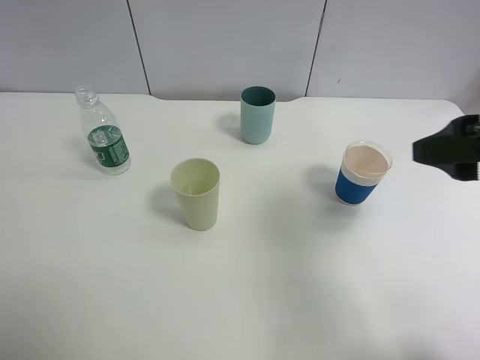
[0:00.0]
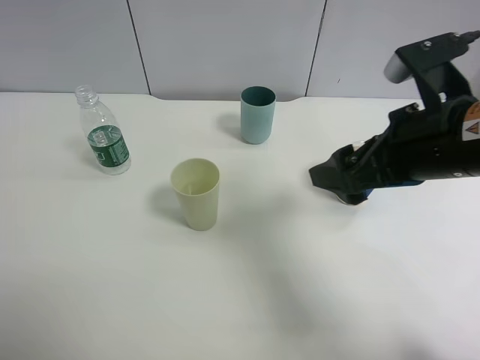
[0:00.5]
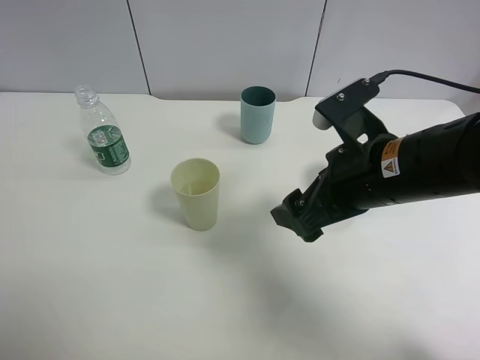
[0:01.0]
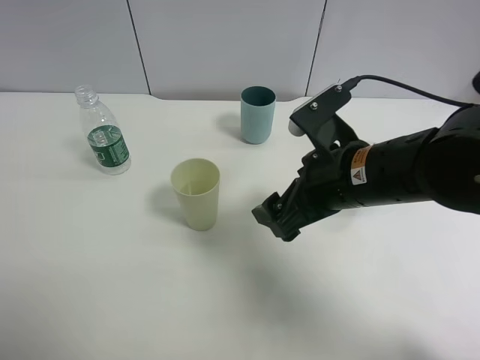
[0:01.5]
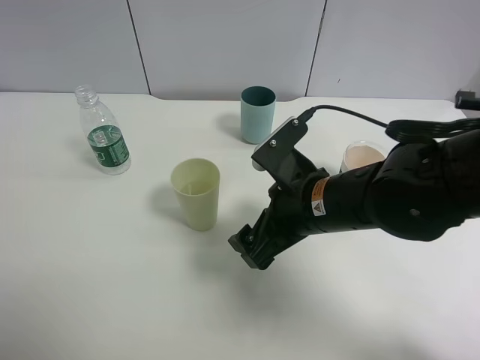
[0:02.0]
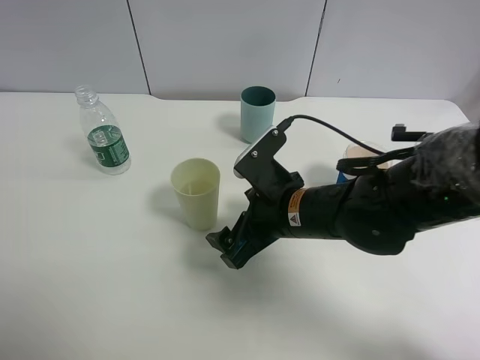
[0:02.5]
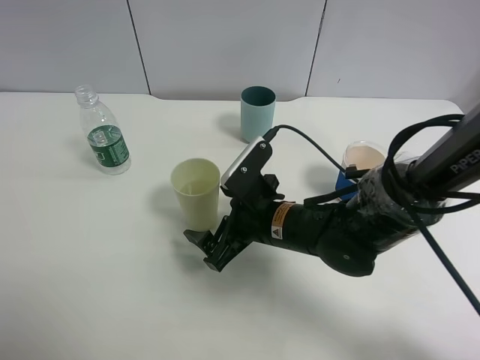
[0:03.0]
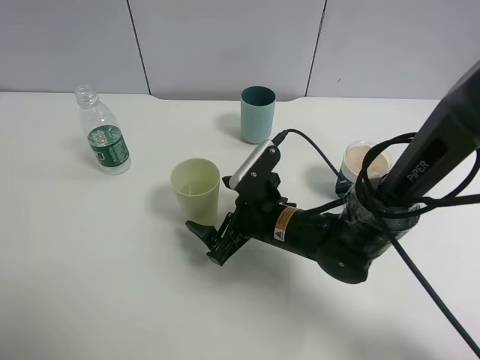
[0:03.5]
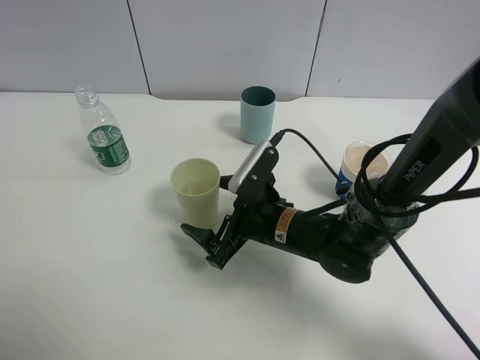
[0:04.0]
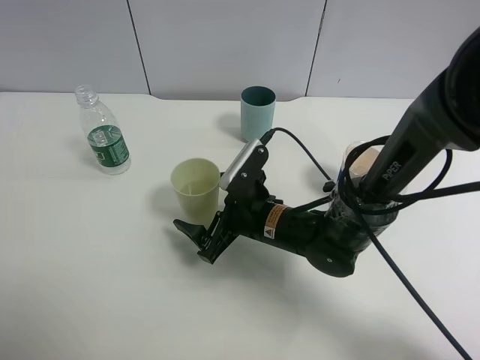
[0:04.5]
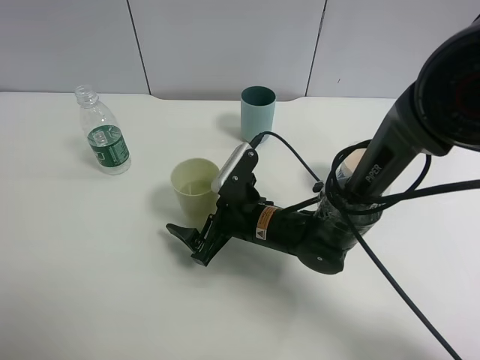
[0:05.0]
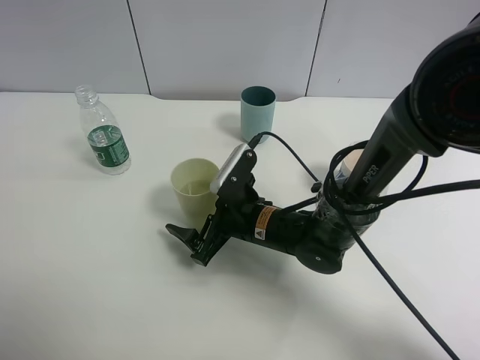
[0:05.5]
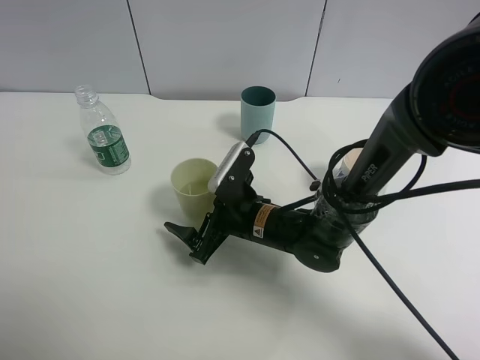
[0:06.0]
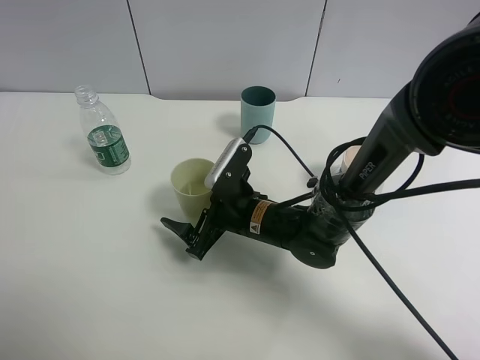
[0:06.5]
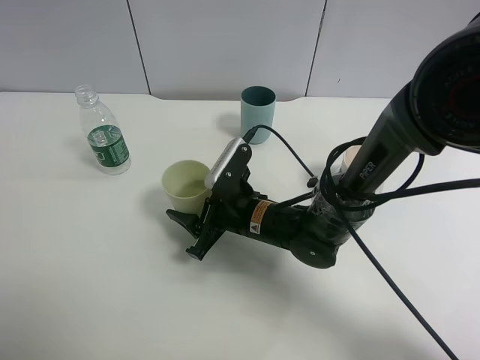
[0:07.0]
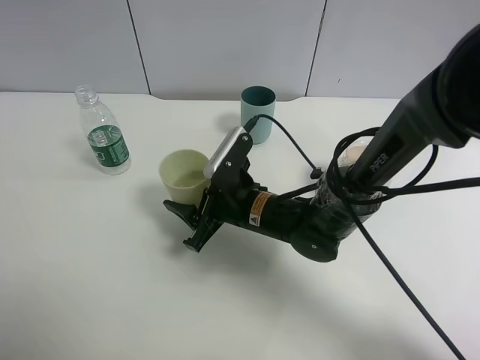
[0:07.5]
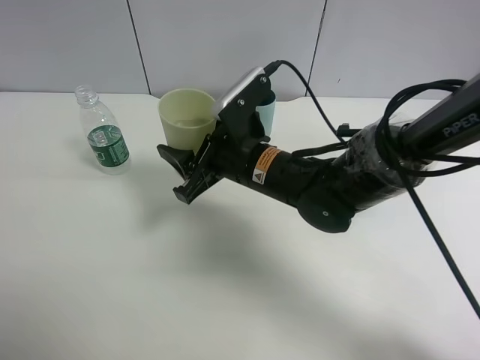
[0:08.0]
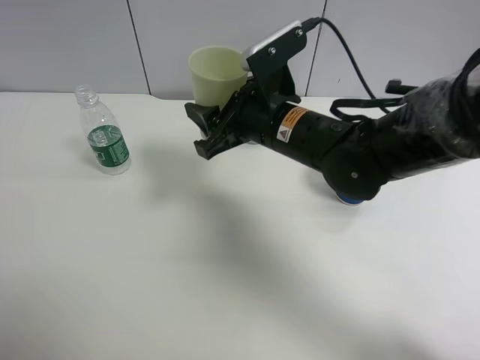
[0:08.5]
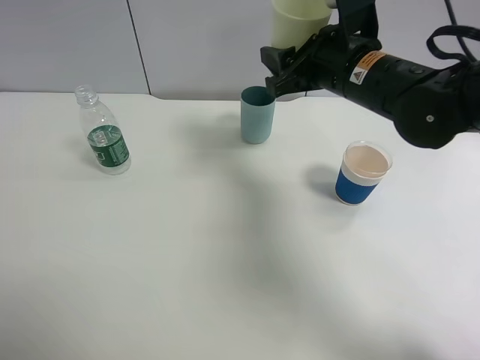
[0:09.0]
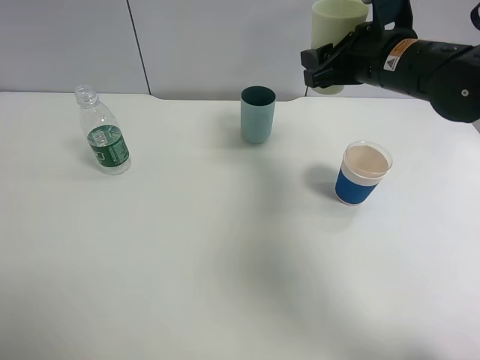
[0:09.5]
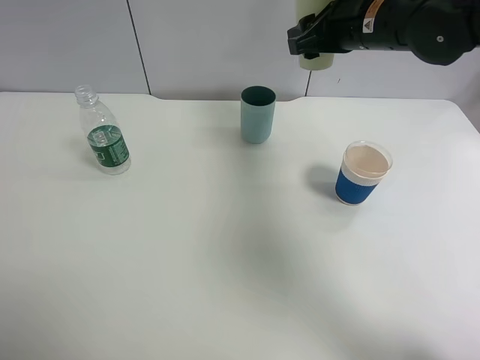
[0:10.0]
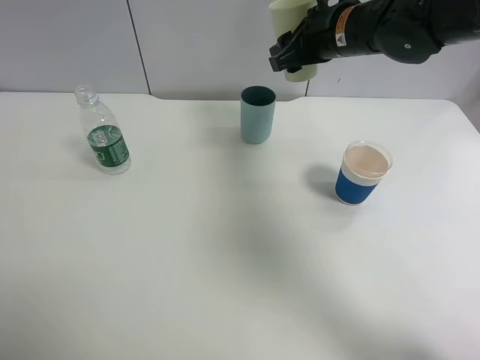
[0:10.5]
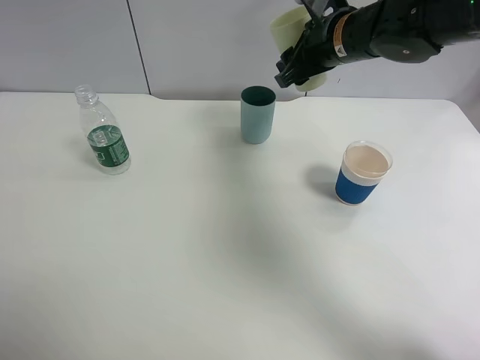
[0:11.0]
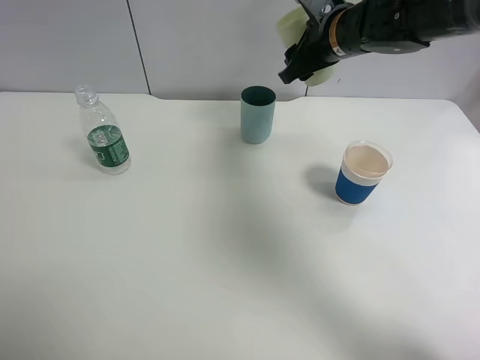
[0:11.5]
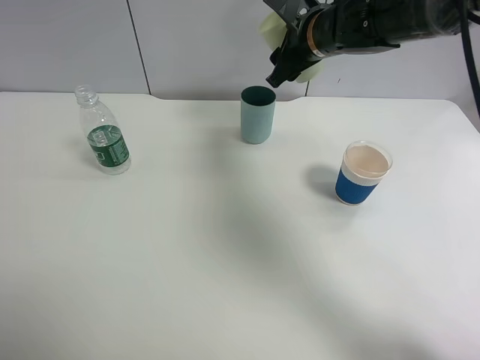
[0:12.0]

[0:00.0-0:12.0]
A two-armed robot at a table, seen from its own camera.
Task of the whole recording: use a clamp to hold the bottle of the drink, pour the beverage into a random cup, then clamp the cup containing the drink and pour the drink into another random cup.
Step, 0:00.0 to 0:07.0: Pick up the green plastic cup bottle with right gripper.
0:00.0 to 0:02.0: The right gripper travels to the left and downward by about 20 cm.
0:02.0 to 0:04.0: The right gripper travels downward by about 10 cm.
0:04.0 to 0:06.0: The grippers stay close to where they were, moving slightly.
0:06.0 to 0:08.0: The right gripper moves upward, roughly 10 cm, and closes.
0:08.0 to 0:10.0: The right gripper is displaced to the right, forward and upward by approximately 20 cm.
0:10.0 to 0:12.0: The right gripper travels to the left by some 5 cm.

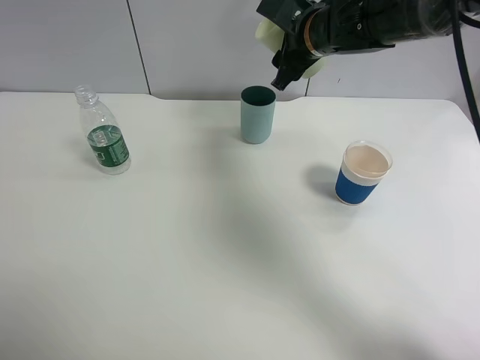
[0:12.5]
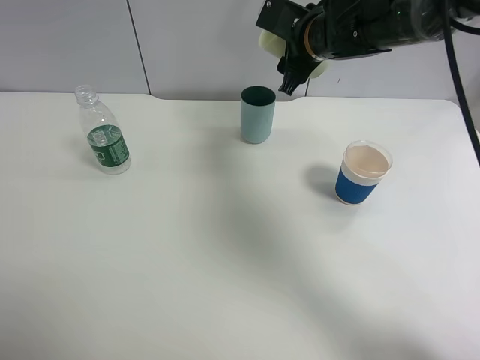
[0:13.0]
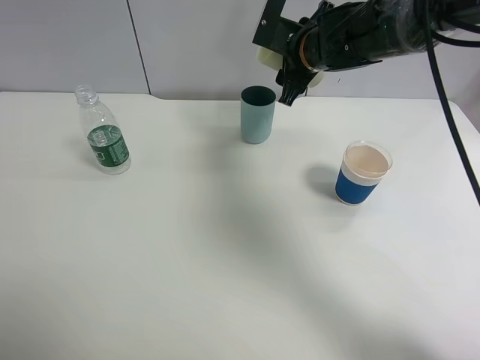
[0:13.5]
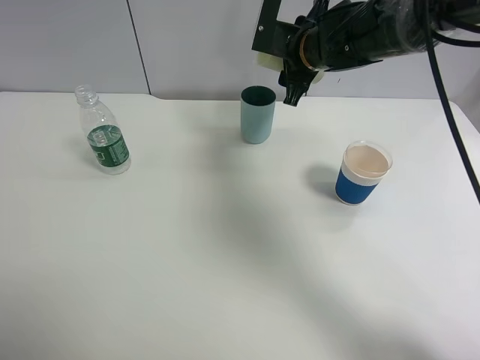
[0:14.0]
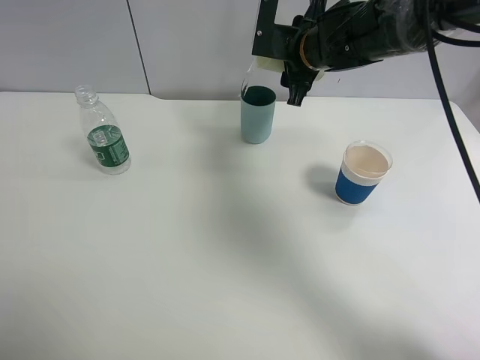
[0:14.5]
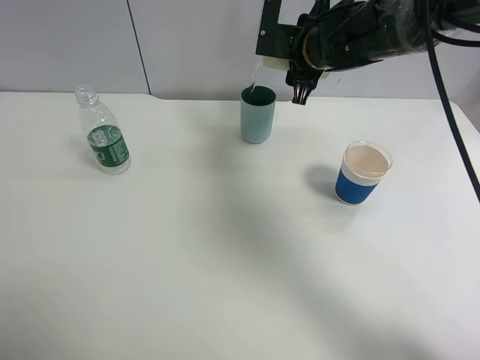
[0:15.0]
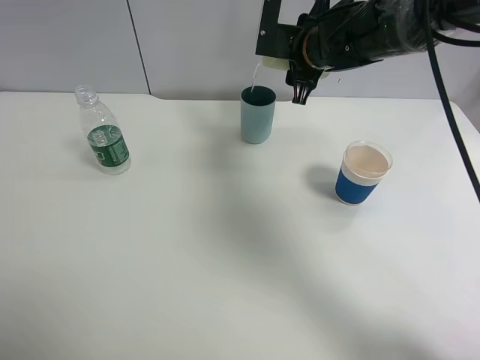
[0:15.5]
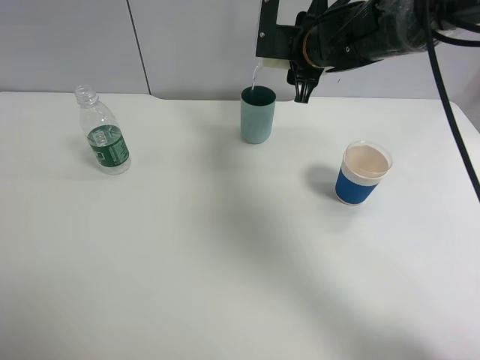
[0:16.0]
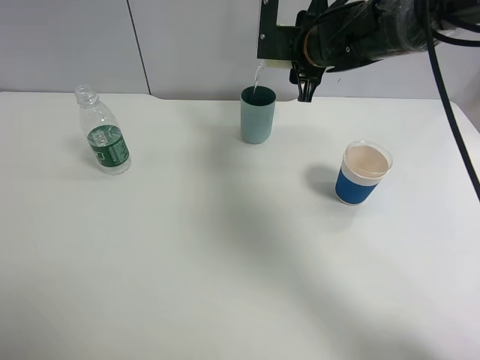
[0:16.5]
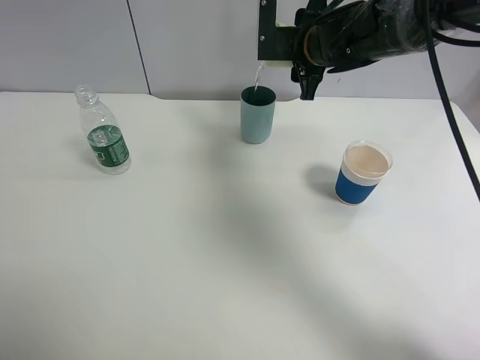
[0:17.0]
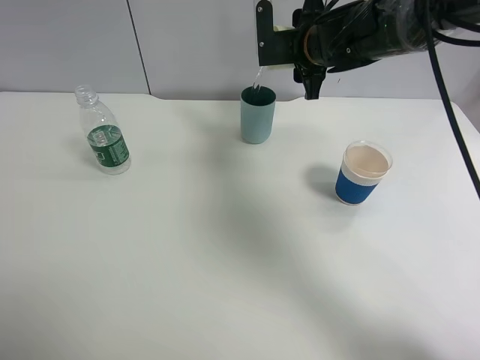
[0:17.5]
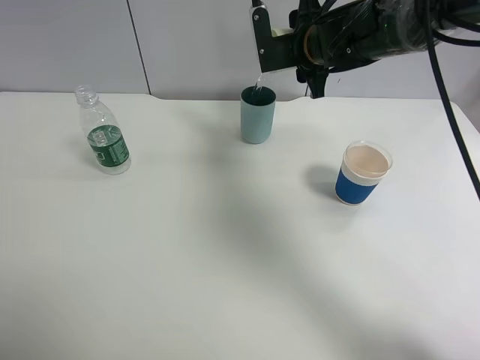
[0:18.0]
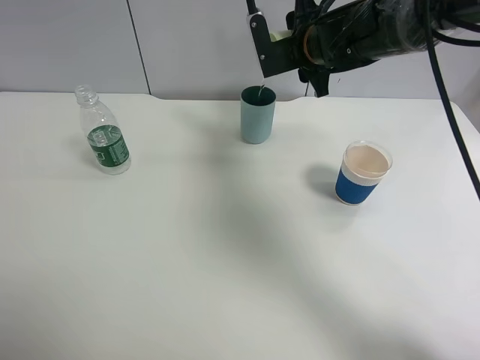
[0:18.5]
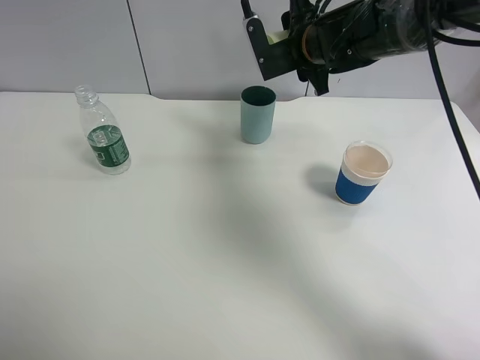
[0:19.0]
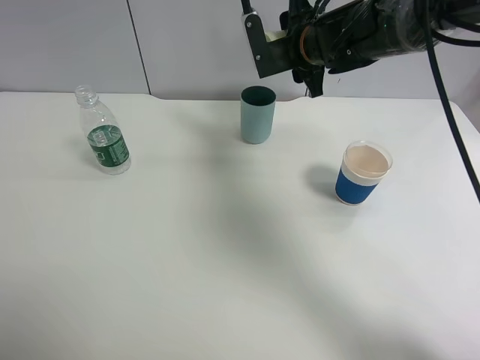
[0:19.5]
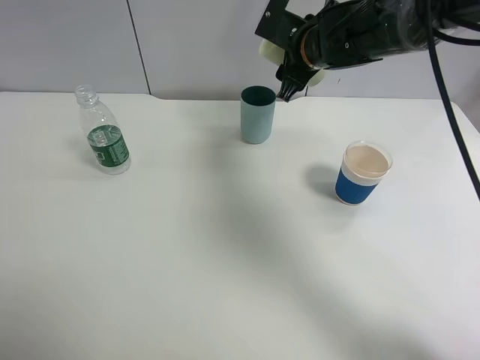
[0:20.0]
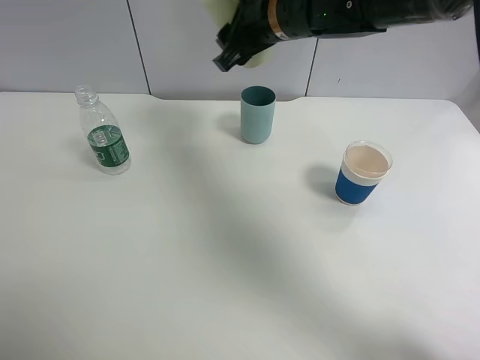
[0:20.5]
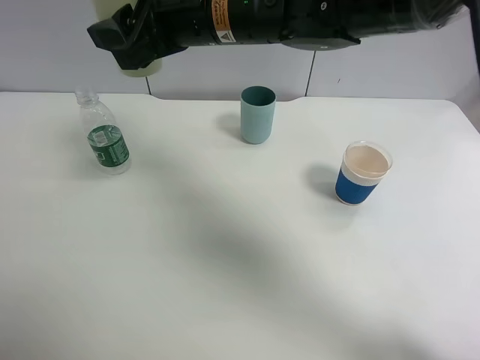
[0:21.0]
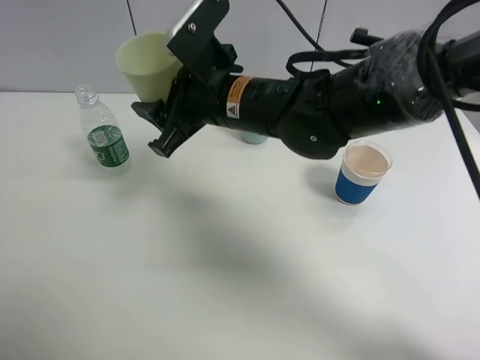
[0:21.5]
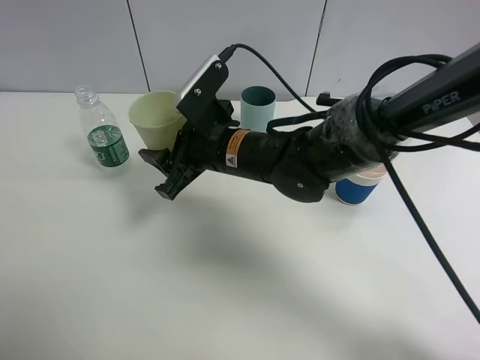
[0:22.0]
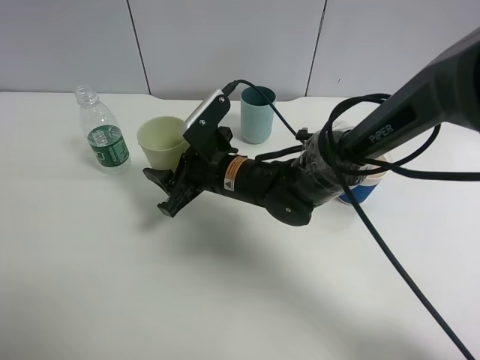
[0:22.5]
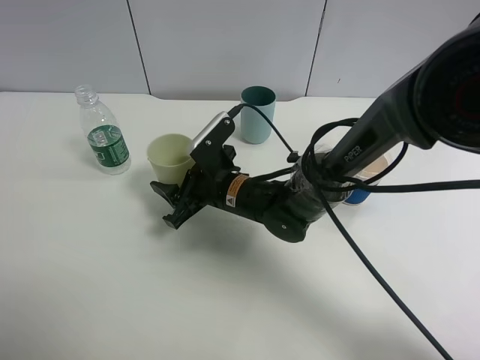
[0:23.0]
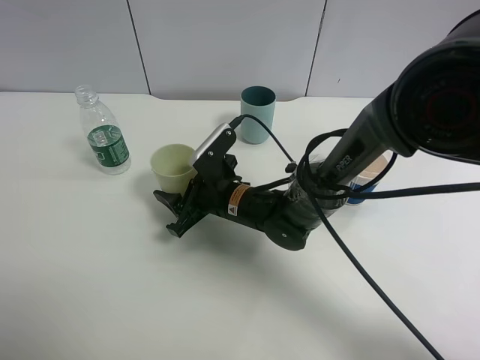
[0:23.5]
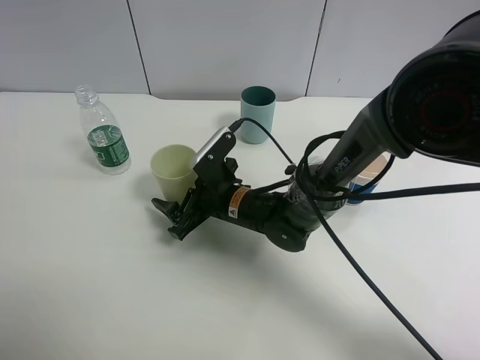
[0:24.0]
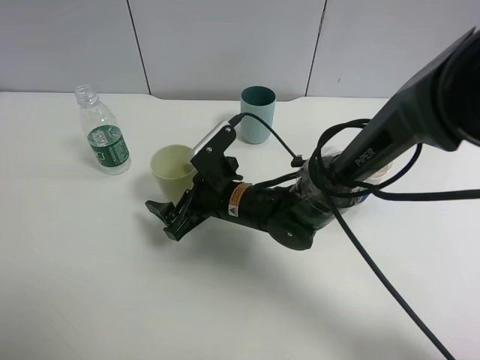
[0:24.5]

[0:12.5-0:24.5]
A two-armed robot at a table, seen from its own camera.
Task of the whole recording: use a clamp to hold the bottle of the drink, pour the beverage into a random cup, then clamp the cup containing the drink and pour the drink into another random cup.
Step, 0:12.5 to 0:19.5: Pour water into the blue plastic cup with right gripper.
0:14.5 to 0:16.5: The grippers stay close to where they were, moving slightly.
0:18.5 to 0:20.5: The right gripper is displaced to the left, backward and upward by about 10 cm.
0:20.5 to 0:22.5: The right gripper moves downward and backward, some 20 cm.
0:22.5 to 0:24.5: The right gripper opens its fingers.

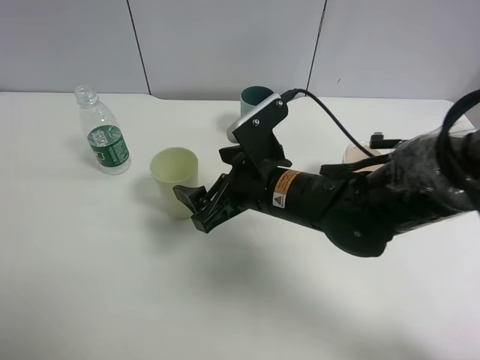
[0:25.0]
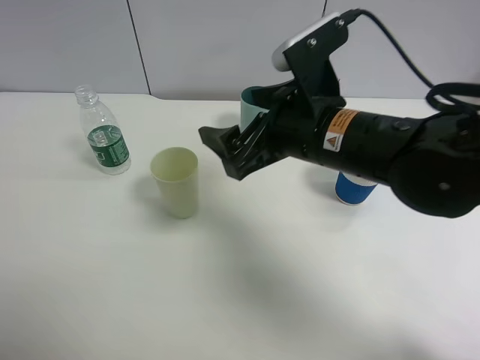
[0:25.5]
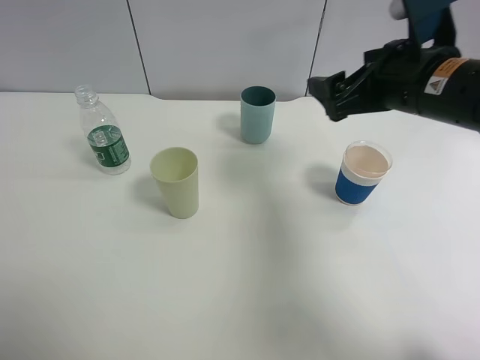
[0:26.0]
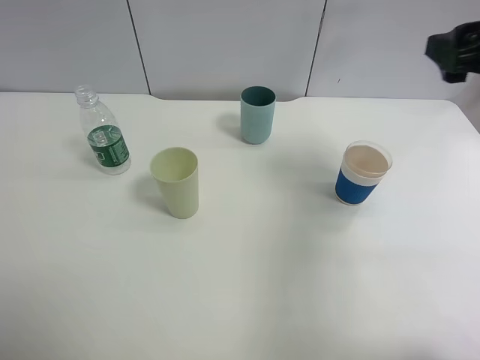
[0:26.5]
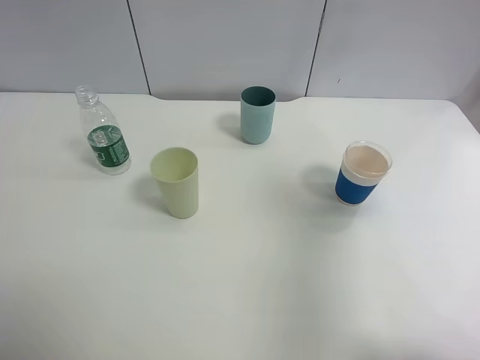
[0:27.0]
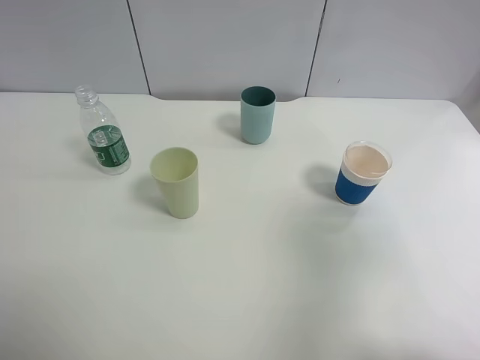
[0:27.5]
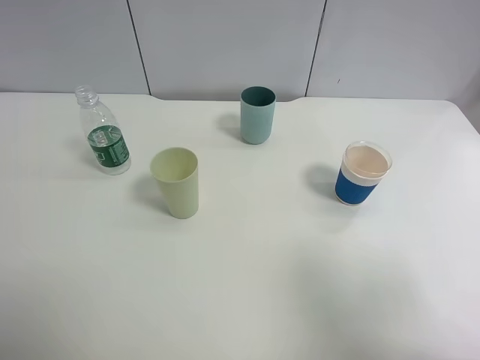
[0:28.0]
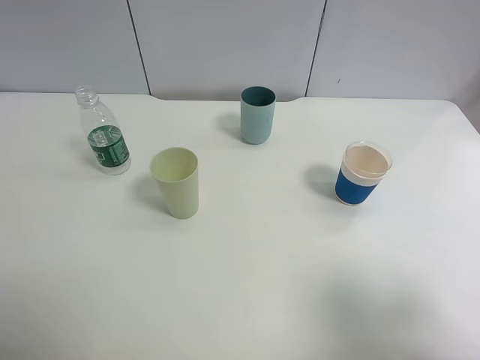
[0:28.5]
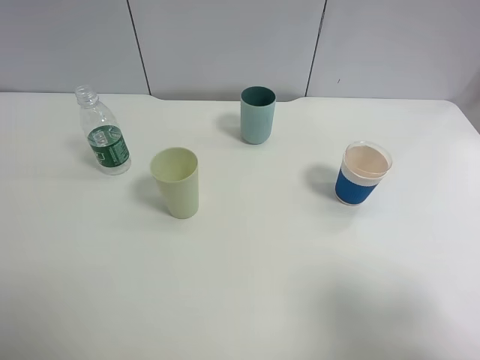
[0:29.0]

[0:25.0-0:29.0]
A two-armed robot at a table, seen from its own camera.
Task of the whole recording: use a clamp to hold the bottle of the drink, pour the beverage into a random cup, then clamp the cup containing the drink and pour the drink into another random cup.
0:25.0 to 0:27.0: The right gripper is displaced to the right and upward by some 35 cm.
0:27.0 to 0:29.0: The right gripper is displaced backward and downward by about 15 cm.
